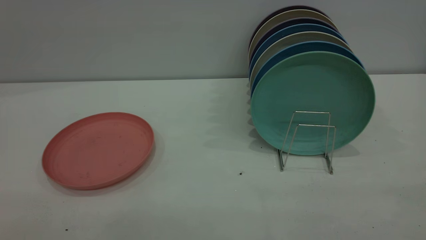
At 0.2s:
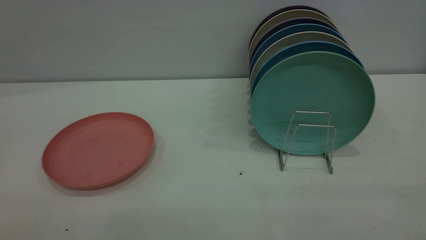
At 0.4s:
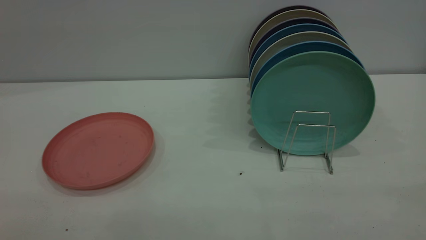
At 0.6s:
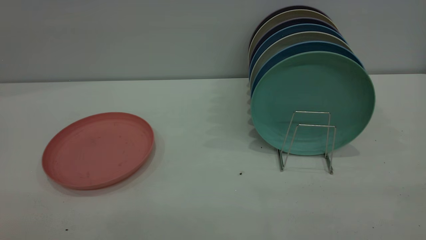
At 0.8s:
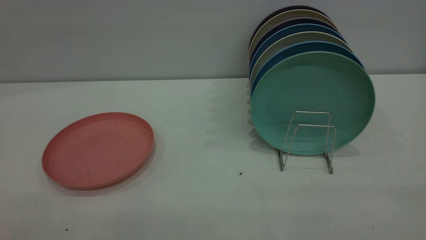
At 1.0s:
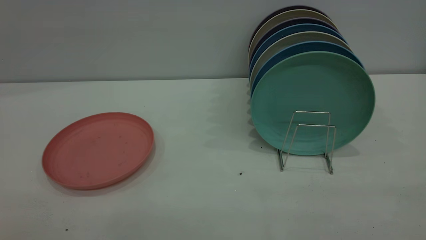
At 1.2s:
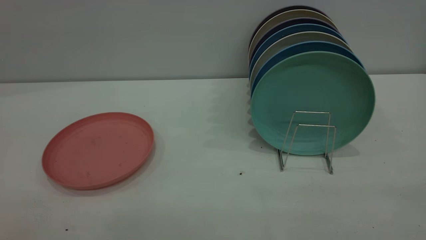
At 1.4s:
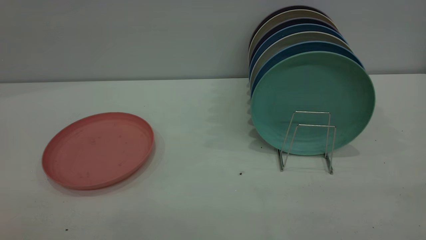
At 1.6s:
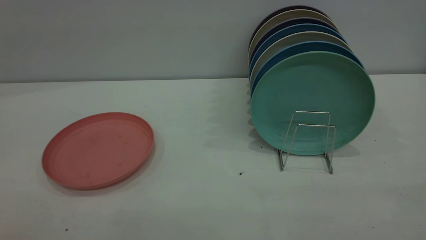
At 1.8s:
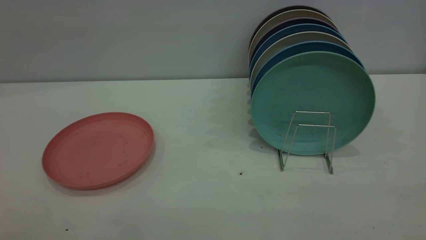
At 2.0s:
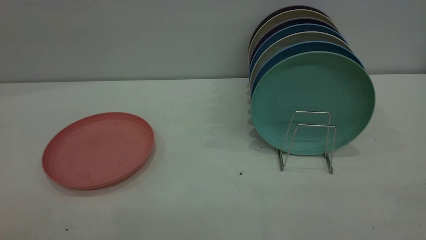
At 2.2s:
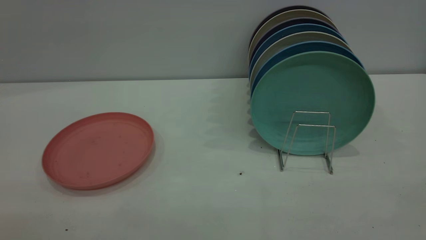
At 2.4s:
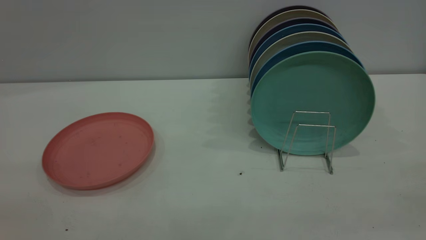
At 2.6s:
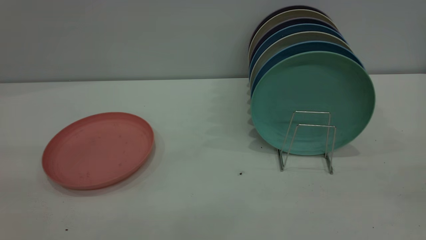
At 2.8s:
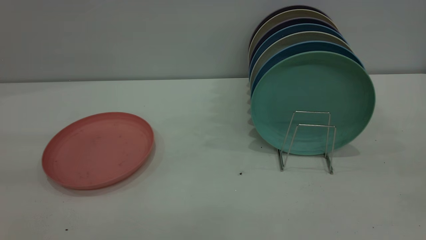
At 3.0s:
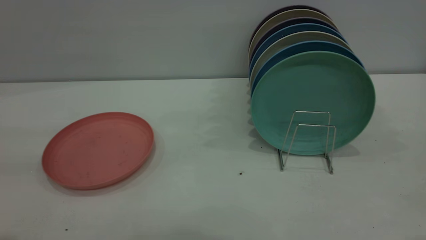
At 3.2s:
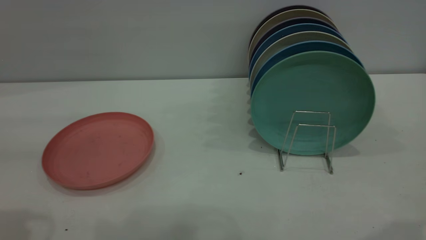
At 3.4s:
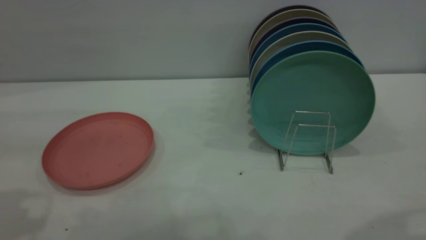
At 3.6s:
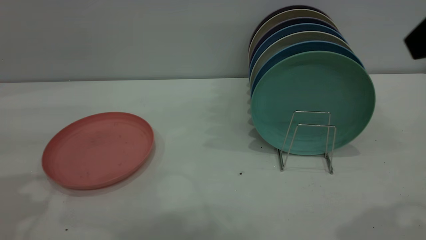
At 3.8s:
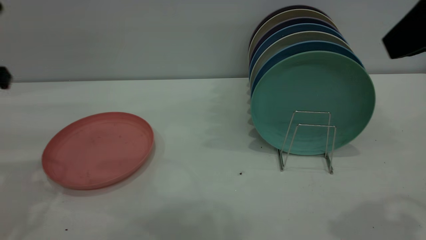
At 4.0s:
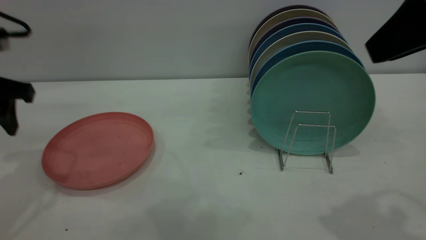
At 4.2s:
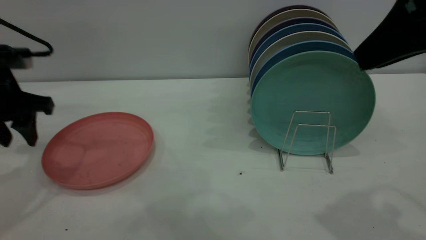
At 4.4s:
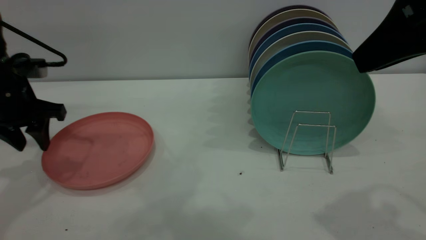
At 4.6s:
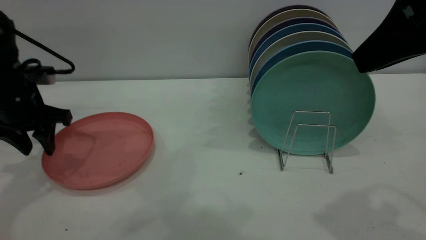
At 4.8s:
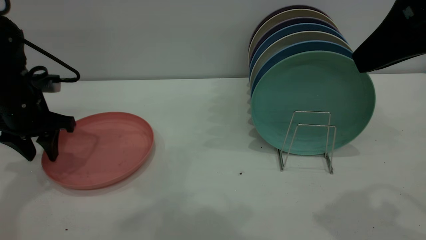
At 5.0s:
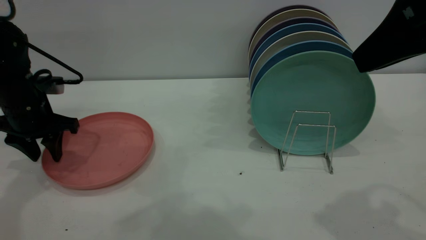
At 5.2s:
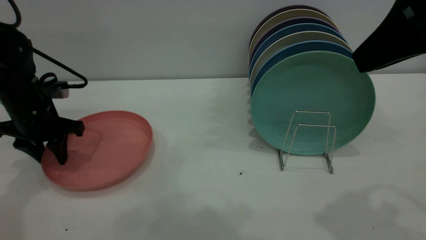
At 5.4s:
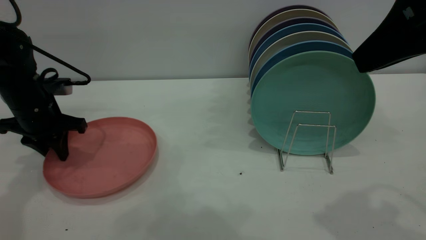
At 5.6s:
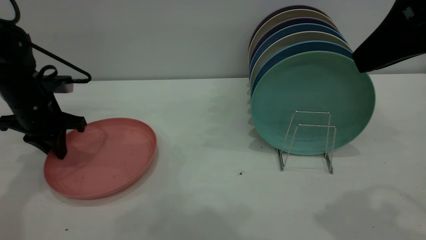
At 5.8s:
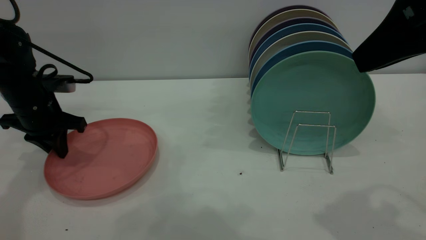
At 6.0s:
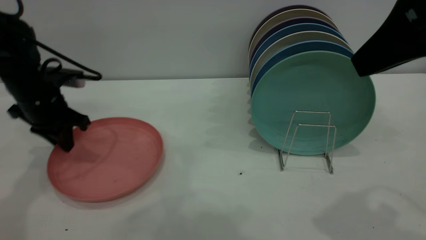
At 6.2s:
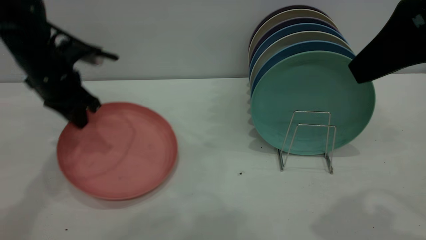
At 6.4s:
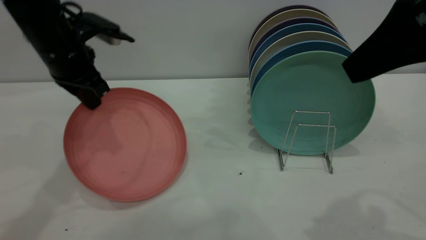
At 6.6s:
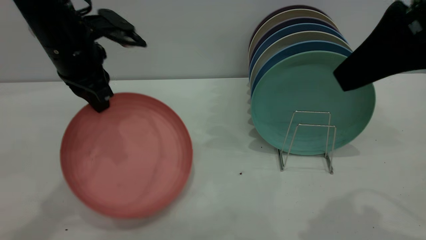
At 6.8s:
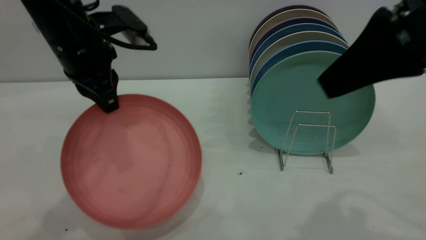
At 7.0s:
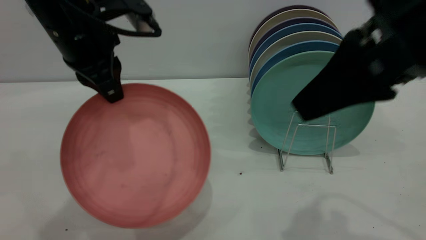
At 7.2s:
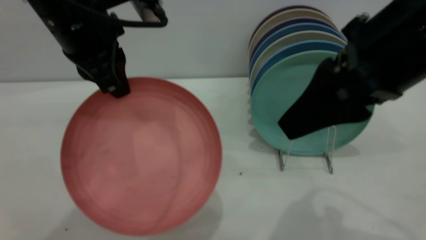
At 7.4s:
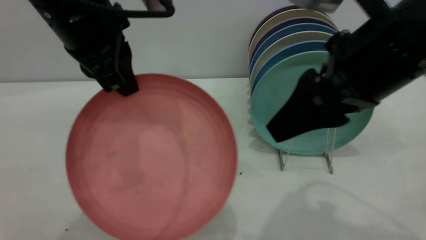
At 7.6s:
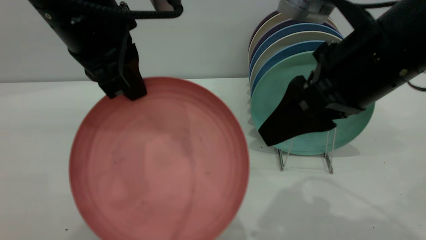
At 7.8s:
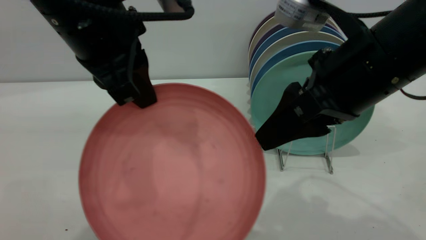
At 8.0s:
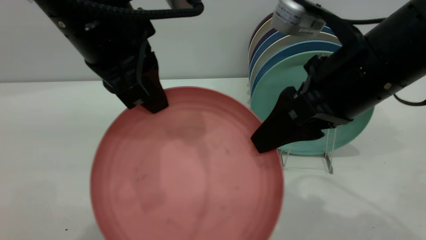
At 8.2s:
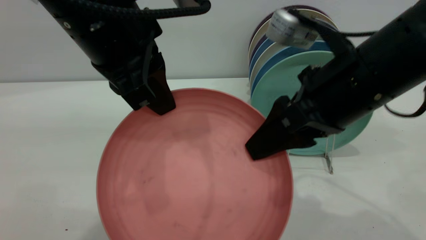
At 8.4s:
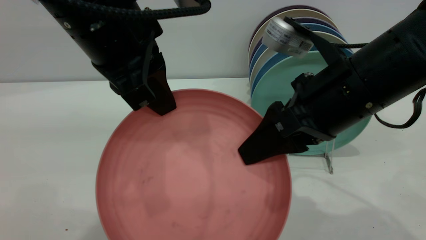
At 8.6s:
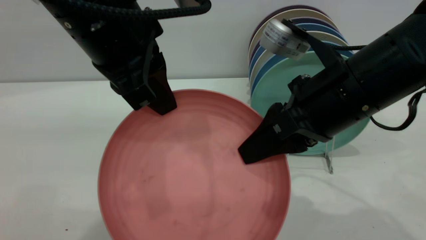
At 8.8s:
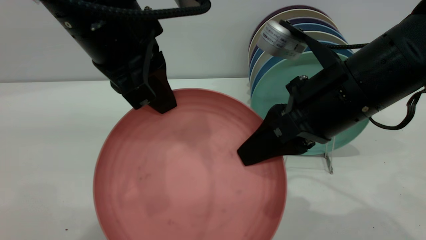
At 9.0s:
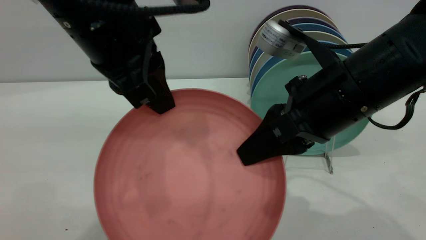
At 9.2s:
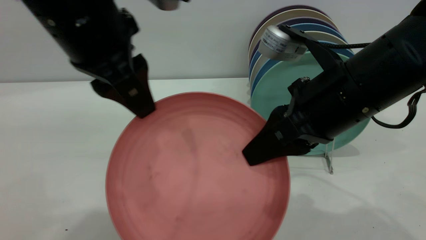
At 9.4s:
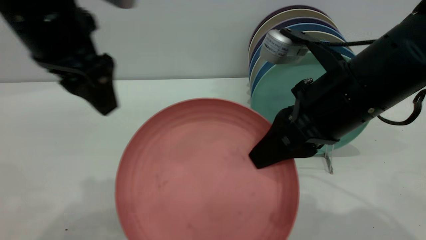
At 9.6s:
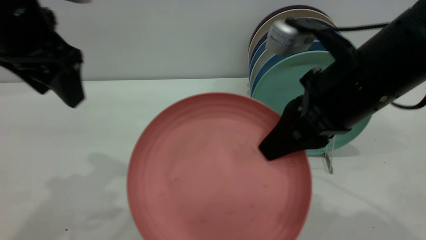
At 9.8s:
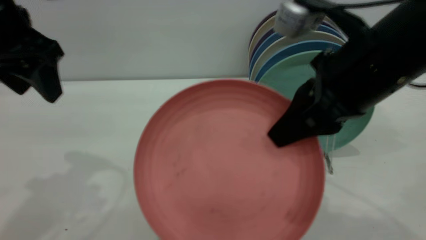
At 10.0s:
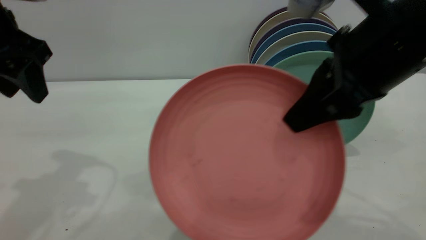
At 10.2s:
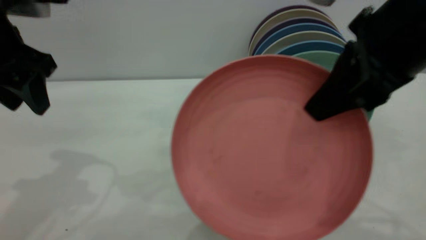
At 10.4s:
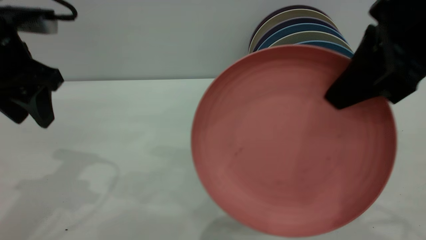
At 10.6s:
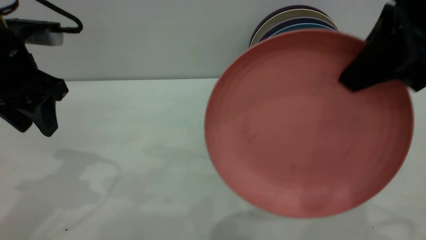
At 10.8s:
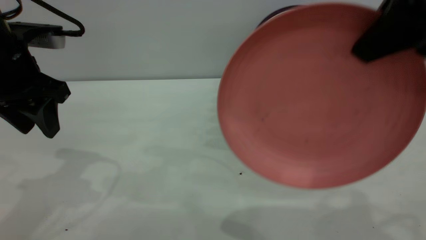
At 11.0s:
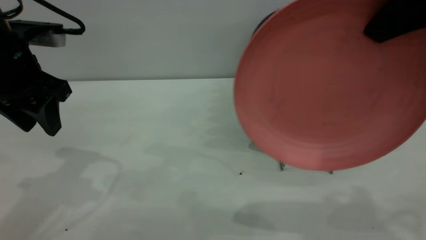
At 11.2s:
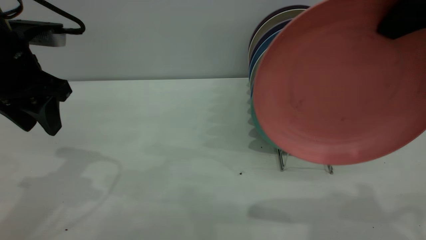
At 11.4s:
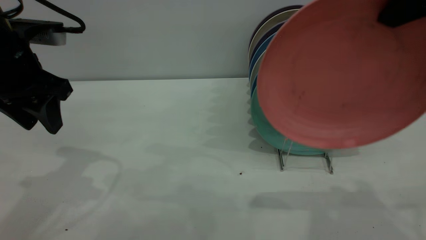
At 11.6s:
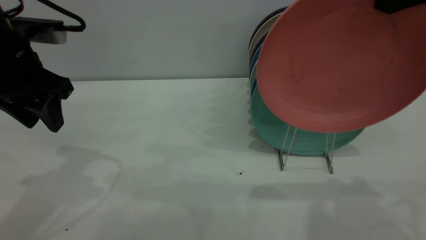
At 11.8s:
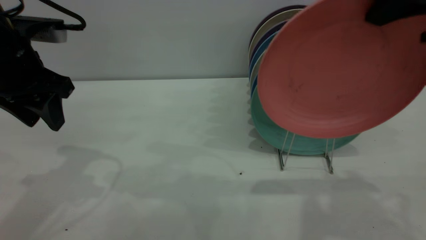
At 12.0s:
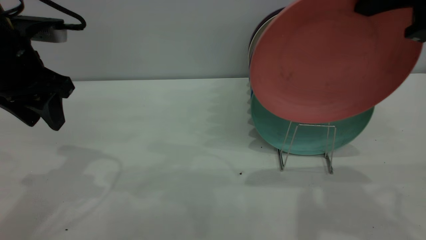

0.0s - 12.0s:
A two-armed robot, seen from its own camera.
Task of the whole recording: put the plate on the plate rack.
Step, 0.0s - 7.0s: Pick up the plate with the left gripper.
Step, 7.4s - 9.2s: Pass the plate from the left gripper to the right gripper.
3.0s - 4.4s: The left gripper travels forward and downward by about 25 cm, while the right gripper moves forward and downward, roughly 10 cm.
4.4s - 6.0s: The left gripper closes up.
6.0s - 7.6s: The left gripper shifts roughly 25 cm to the right, upward and backward; the right gripper goes some 10 cm downward and to the left, and opens its fingers.
7.6s - 9.0s: The right gripper closes up.
9.0s - 10.4s: The left gripper travels to the left by roughly 15 cm, and opens; the right gripper moves upward, approximately 10 cm.
10.4s - 12.0s: The right gripper changes place by some 5 cm.

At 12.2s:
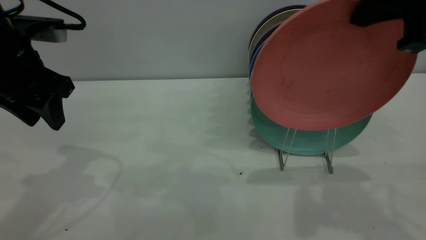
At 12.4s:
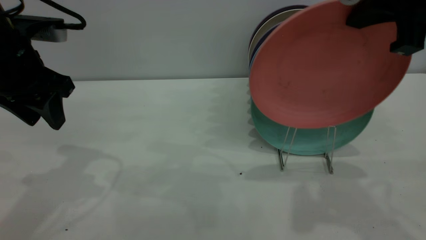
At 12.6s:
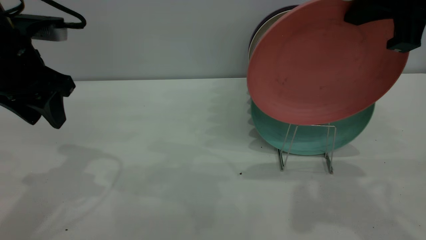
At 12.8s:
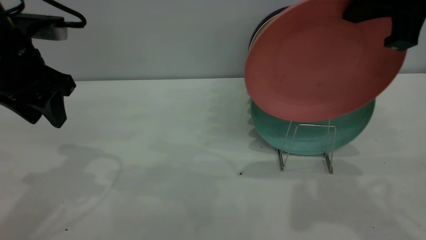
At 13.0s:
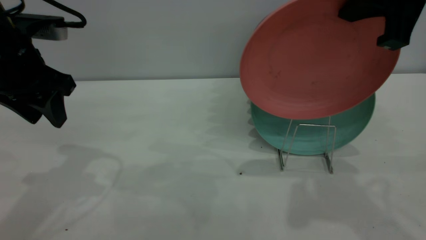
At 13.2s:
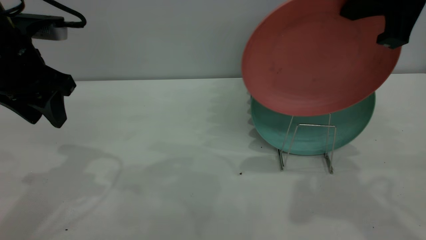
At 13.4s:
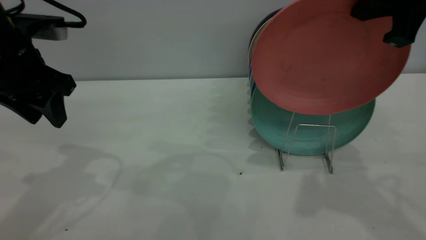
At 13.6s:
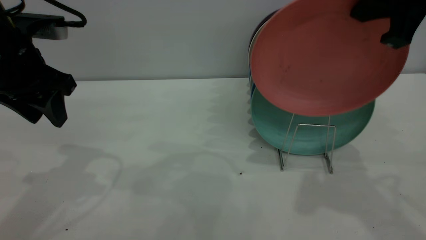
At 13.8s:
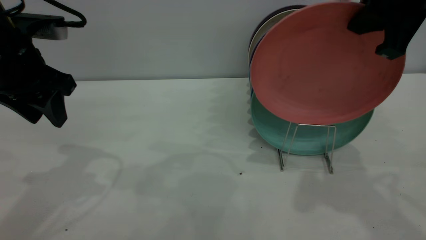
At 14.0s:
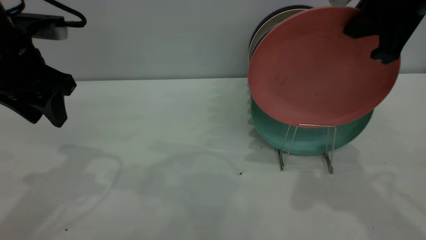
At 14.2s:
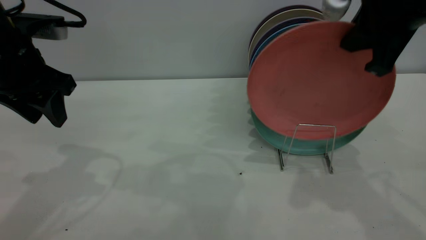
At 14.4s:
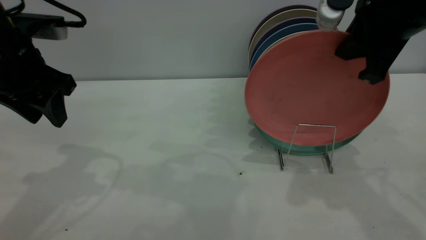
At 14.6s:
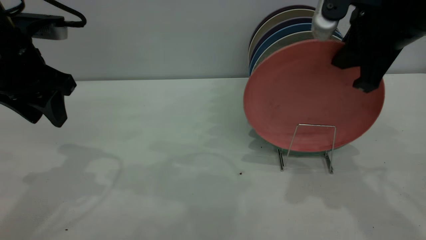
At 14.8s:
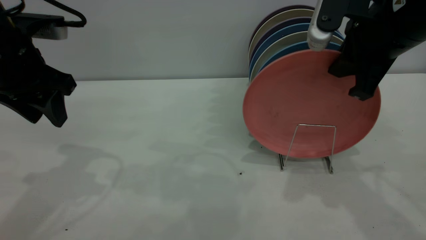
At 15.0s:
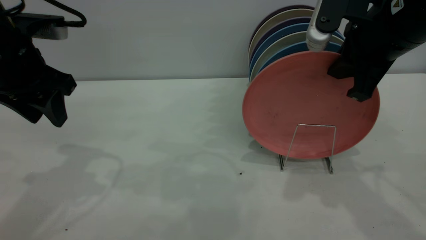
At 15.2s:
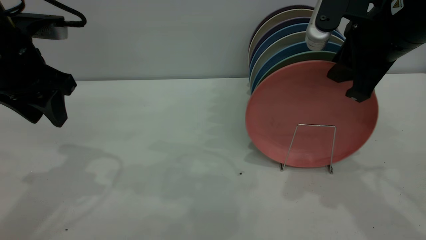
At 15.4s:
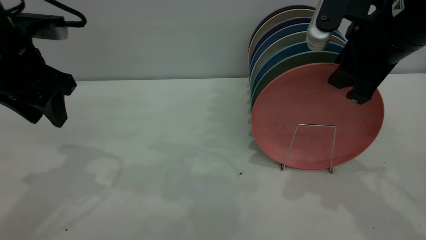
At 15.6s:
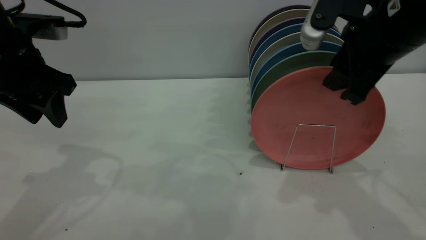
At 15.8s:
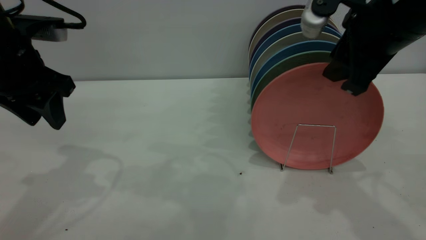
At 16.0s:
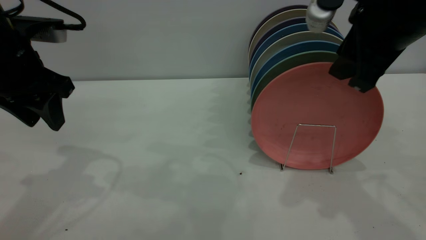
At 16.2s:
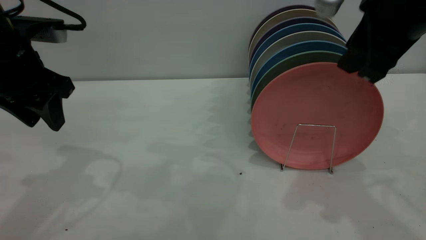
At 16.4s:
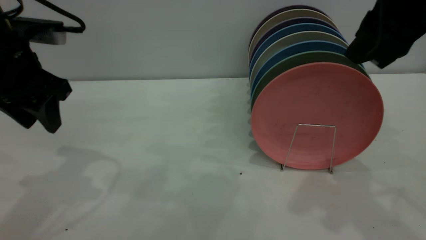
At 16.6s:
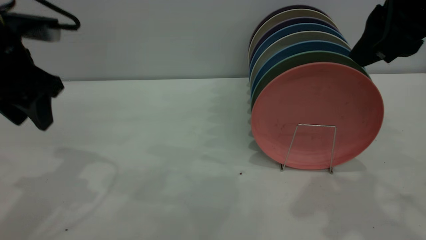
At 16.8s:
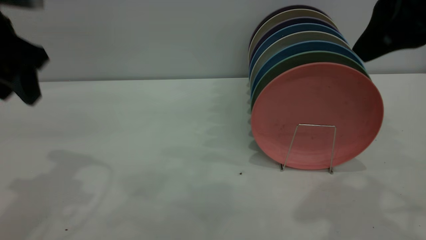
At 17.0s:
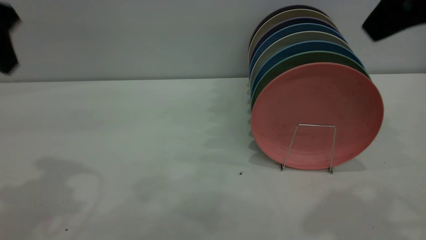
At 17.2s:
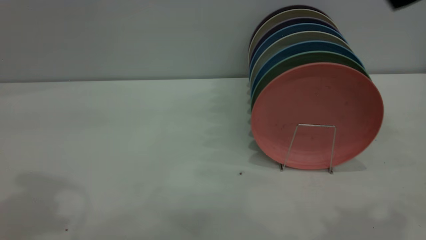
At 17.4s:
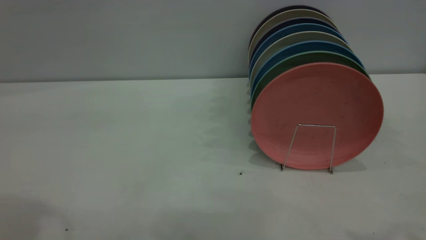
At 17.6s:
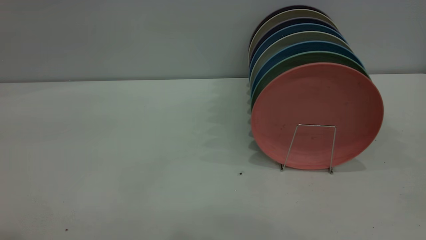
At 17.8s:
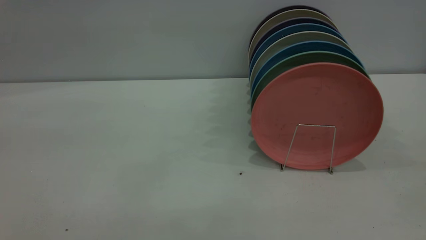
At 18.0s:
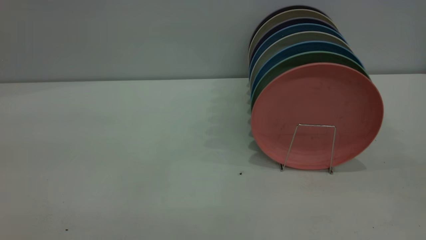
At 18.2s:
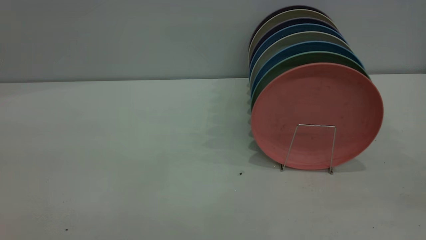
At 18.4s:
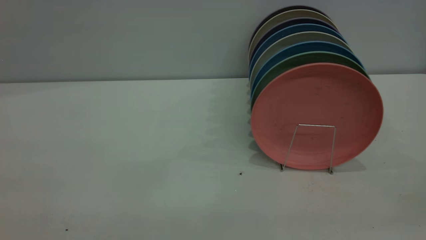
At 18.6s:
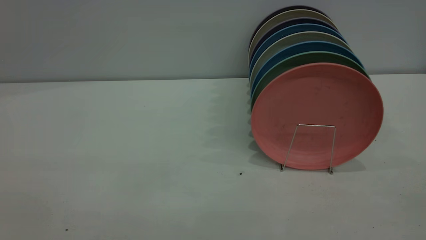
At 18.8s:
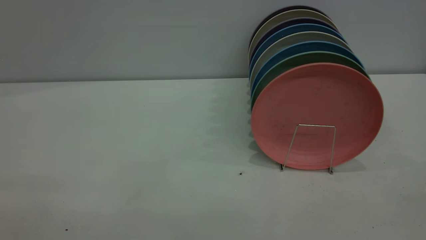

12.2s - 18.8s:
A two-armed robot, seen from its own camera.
Task of the whole recording: put the plate on the plate rack.
Step, 12.2s - 16.8s: Place the plate on the shelf.
12.2s - 13.8s: There are only small adjustments of the grippers.
13.8s - 15.4s: The right gripper heads downward, covering approximately 5 cm, and opens.
15.4s - 17.2s: The grippers both shift upward and backward by approximately 20 cm.
